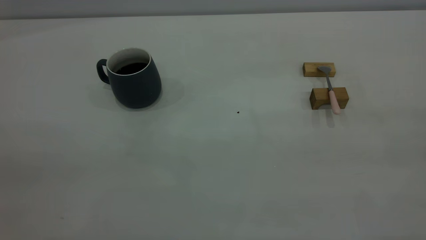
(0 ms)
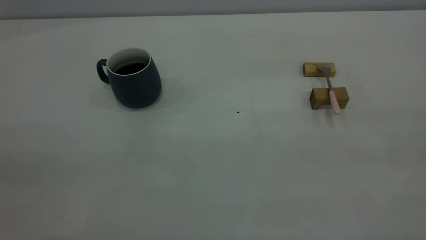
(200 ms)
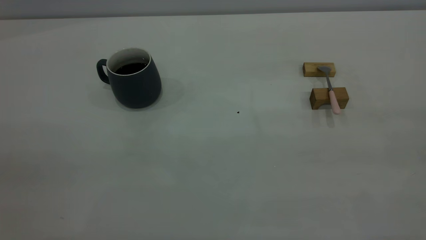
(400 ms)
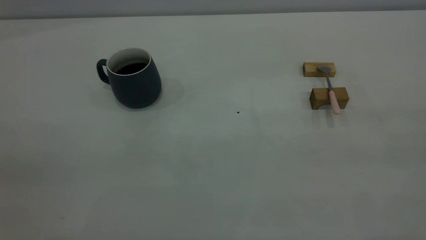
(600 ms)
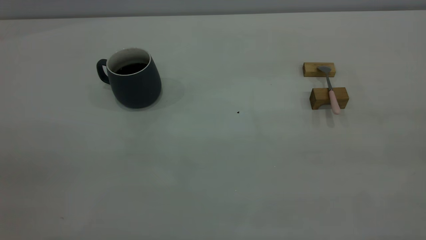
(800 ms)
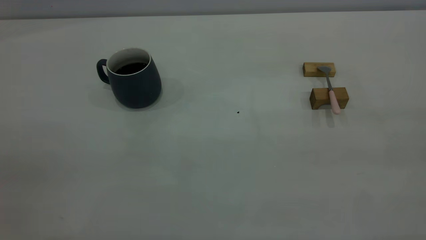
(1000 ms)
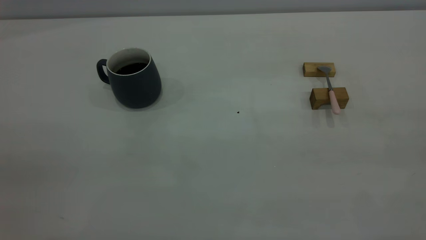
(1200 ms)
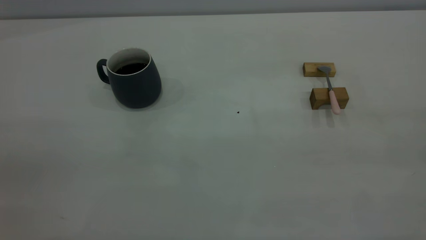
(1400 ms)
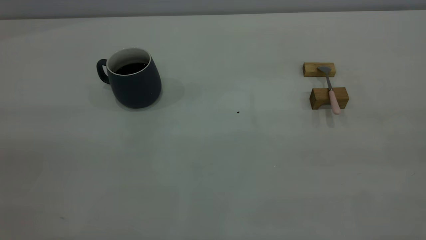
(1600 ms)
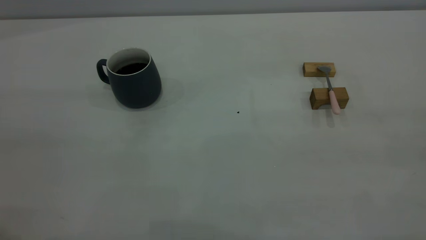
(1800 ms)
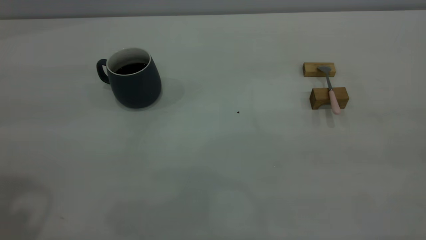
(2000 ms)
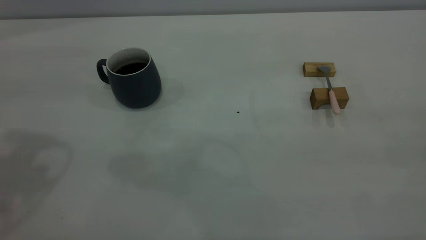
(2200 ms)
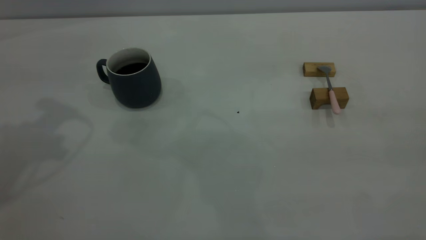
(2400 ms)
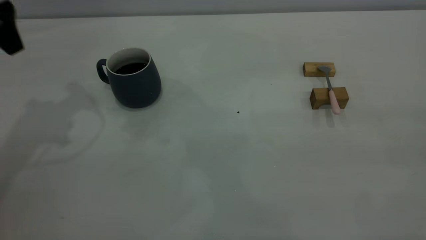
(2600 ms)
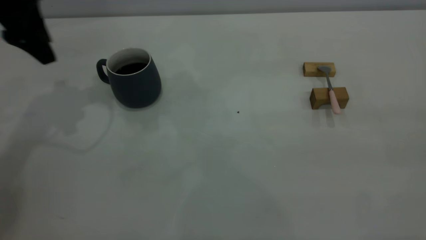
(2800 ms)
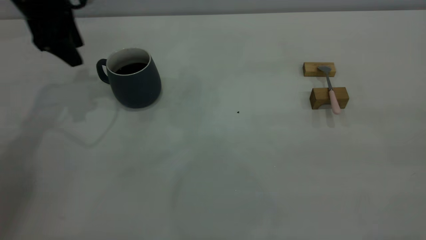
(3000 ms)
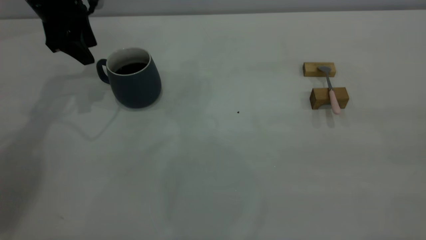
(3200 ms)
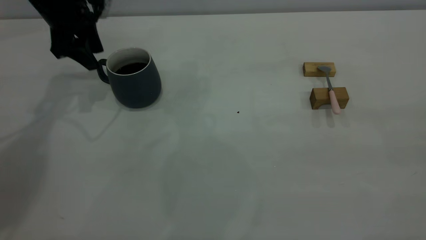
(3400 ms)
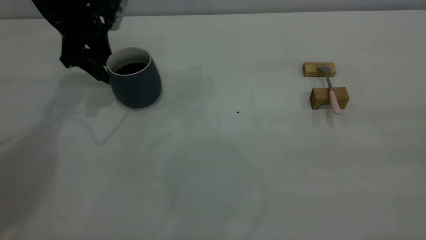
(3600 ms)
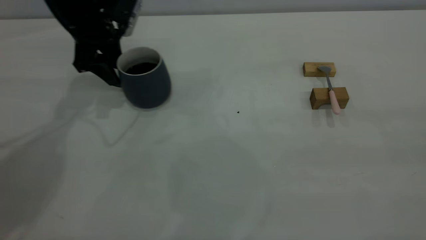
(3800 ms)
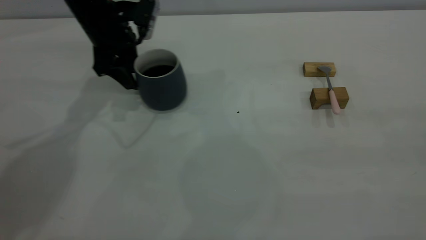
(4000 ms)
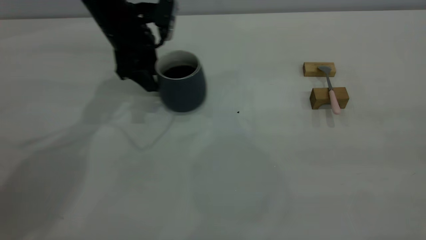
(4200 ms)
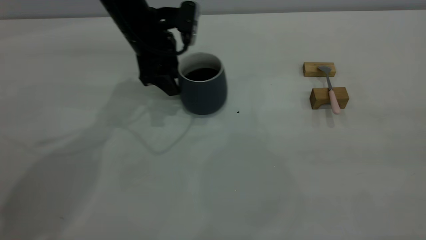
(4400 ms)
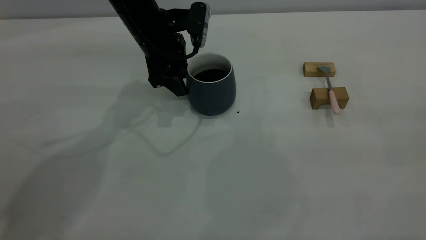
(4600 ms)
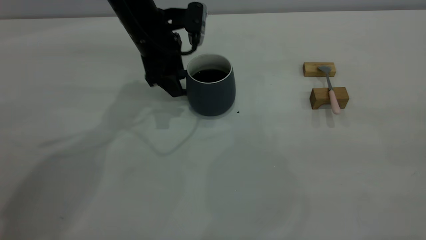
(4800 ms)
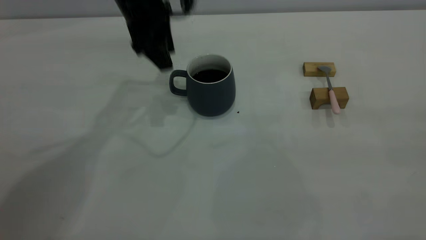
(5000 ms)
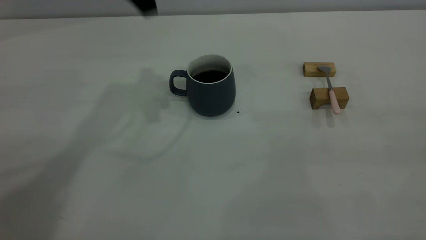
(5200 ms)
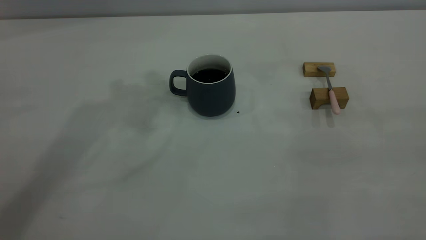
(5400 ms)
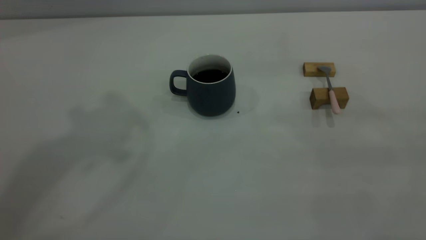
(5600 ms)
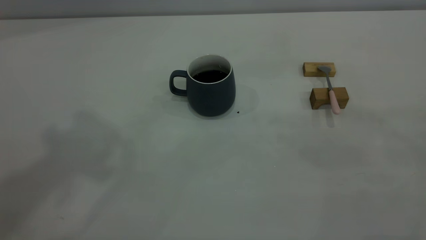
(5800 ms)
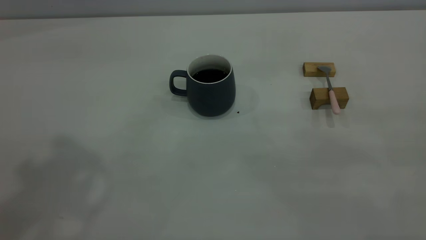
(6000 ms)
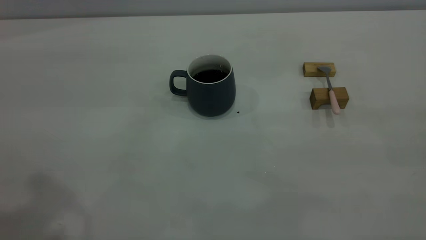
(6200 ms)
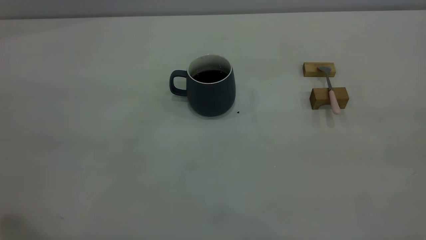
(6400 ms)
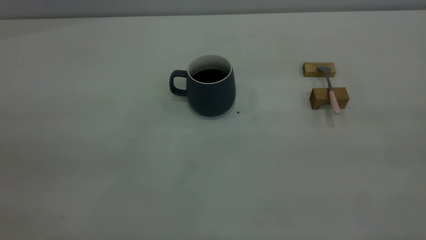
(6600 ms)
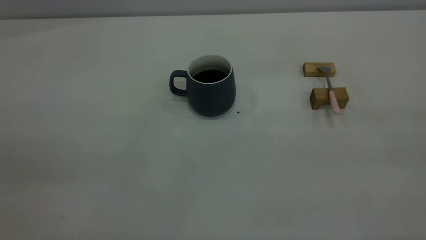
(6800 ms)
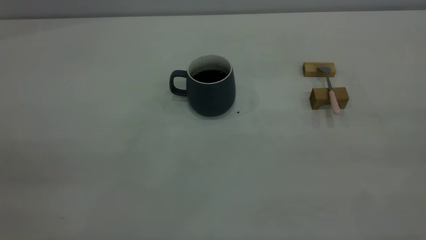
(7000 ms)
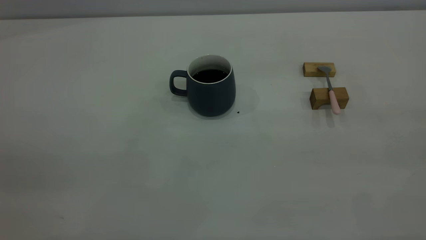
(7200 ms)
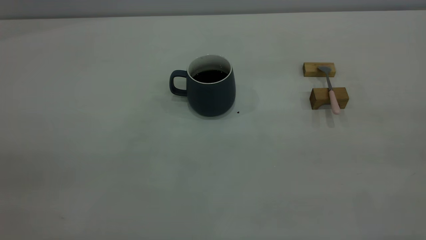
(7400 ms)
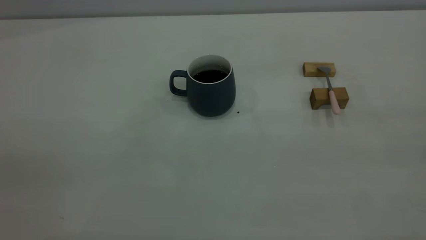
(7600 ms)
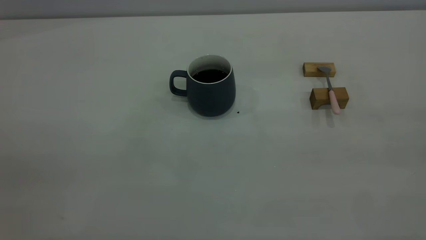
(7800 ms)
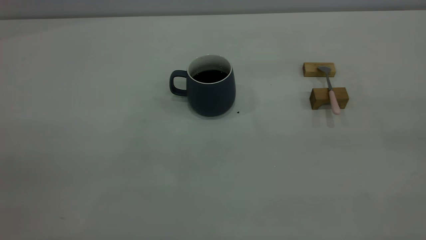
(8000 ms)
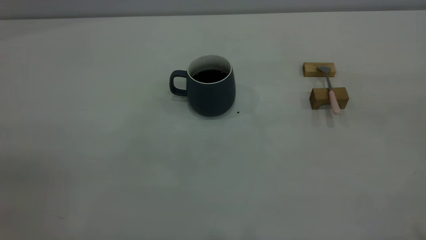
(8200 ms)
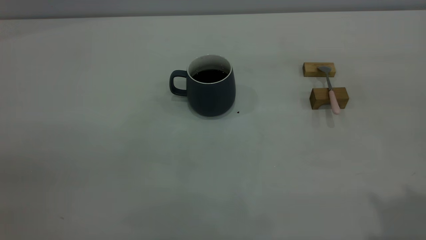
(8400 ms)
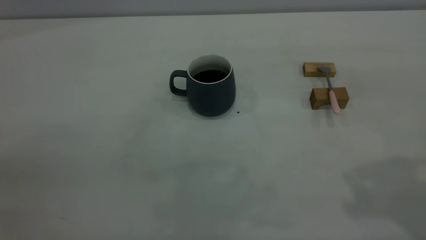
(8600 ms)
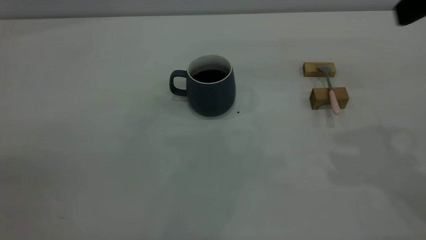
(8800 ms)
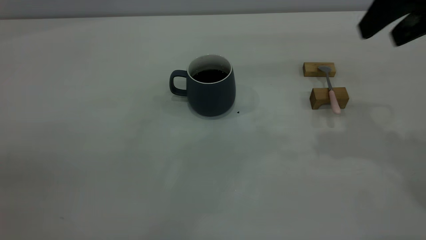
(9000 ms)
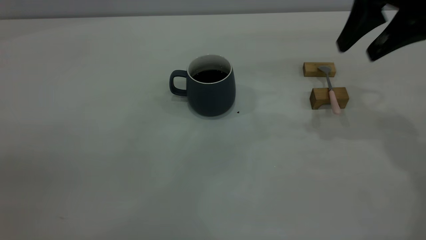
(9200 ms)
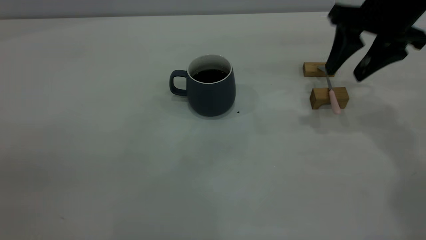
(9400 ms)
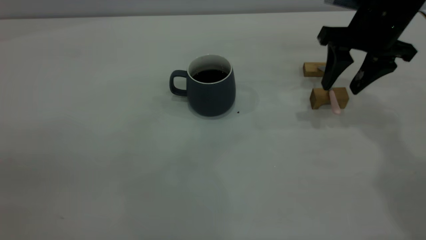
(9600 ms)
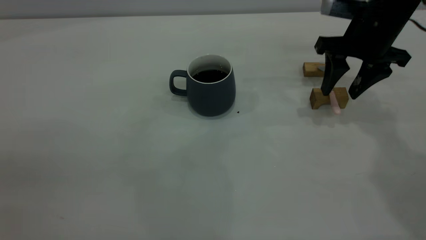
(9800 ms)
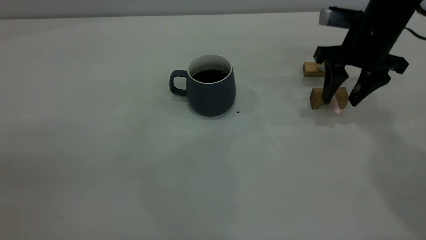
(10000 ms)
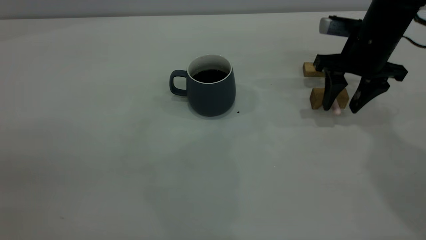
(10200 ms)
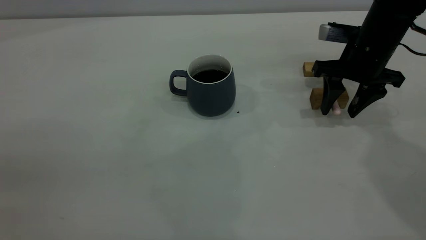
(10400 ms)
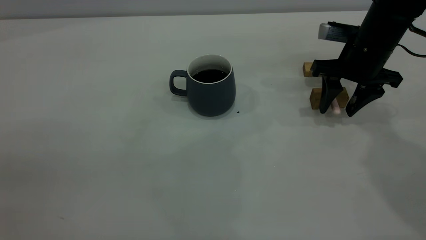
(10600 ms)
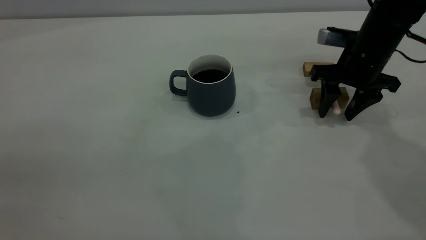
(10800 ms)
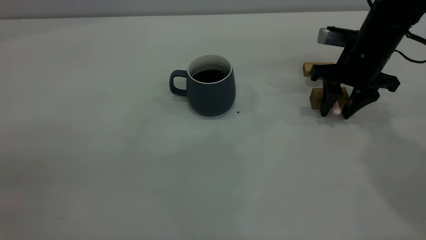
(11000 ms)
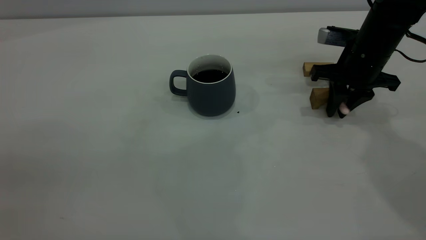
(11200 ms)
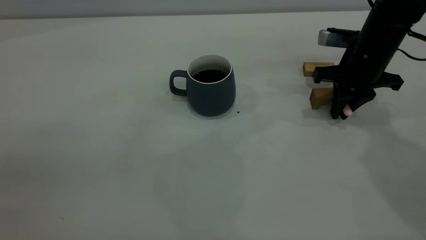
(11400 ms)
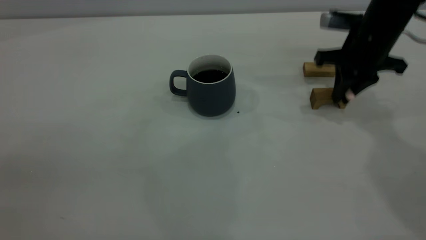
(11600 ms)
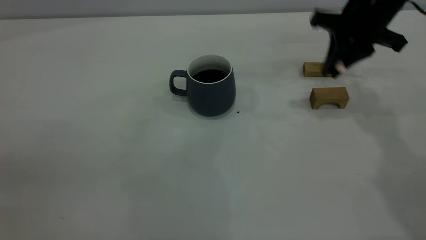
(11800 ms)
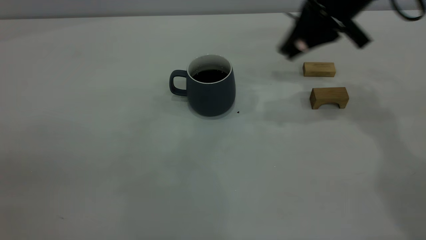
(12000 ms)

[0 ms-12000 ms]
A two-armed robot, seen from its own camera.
Step, 0 ms to 4800 ms: Move the cup with coffee to the center of view.
Step, 5200 ms to 11600 ms: Pick up the spoon.
1600 ms to 3000 ms: The left gripper heads forward and downward, covering roughly 40 cm.
3000 ms to 4400 ms: The left gripper goes about 15 cm to the right and downward.
4400 ms to 6000 ms: The left gripper goes some 40 cm upward and backward.
7600 ms to 9000 ms: The right gripper moves forward, approximately 30 cm, and opens its fingers.
9000 ms to 10400 ms: The right gripper travels downward and forward by approximately 20 cm.
10400 ms to 12000 ms: The right gripper moves upward and to the left, roughly 10 cm, and closes its fingers.

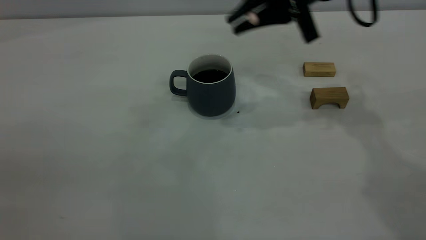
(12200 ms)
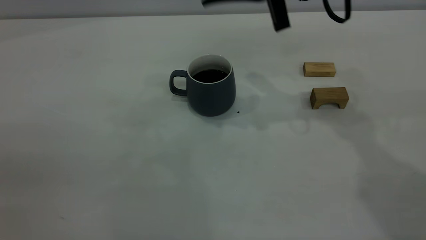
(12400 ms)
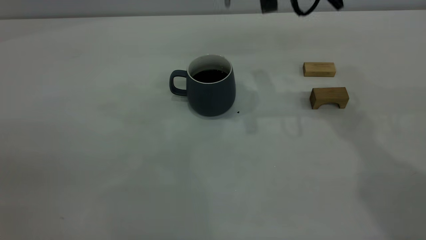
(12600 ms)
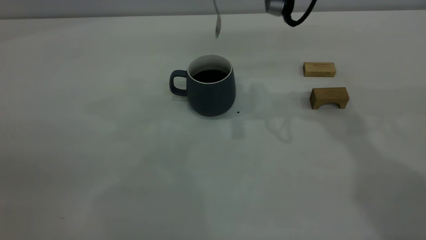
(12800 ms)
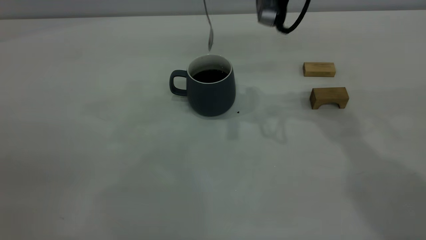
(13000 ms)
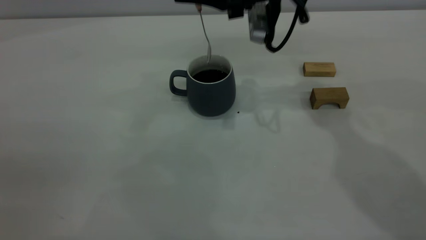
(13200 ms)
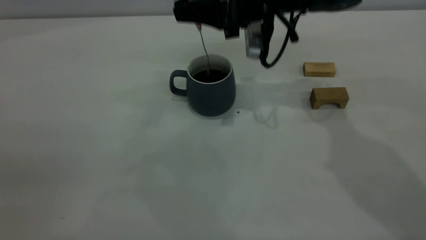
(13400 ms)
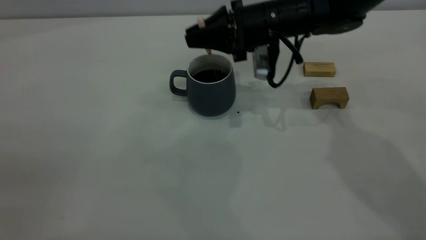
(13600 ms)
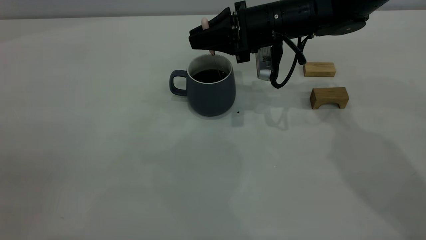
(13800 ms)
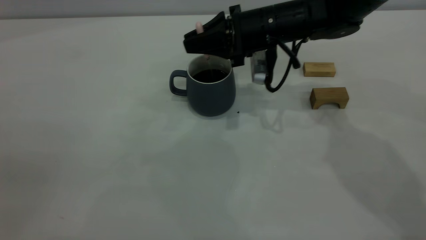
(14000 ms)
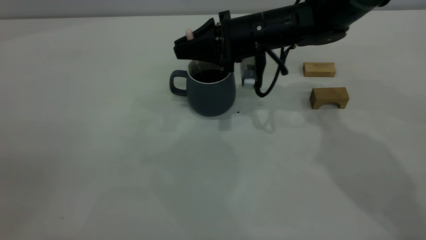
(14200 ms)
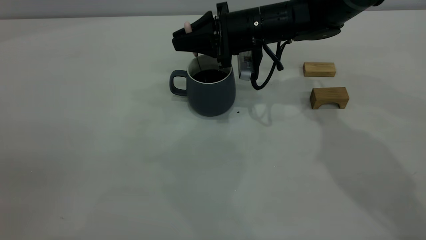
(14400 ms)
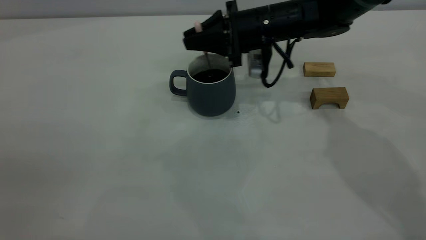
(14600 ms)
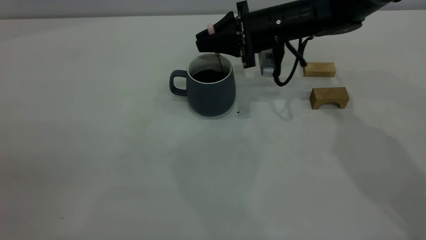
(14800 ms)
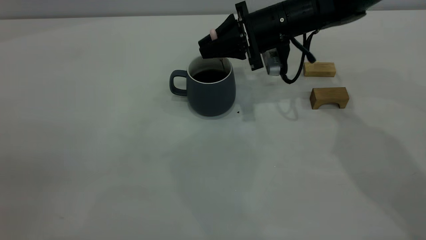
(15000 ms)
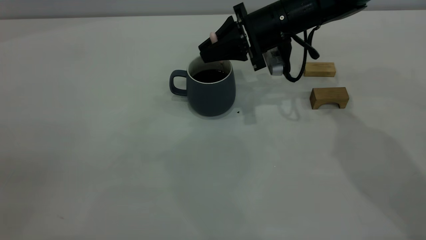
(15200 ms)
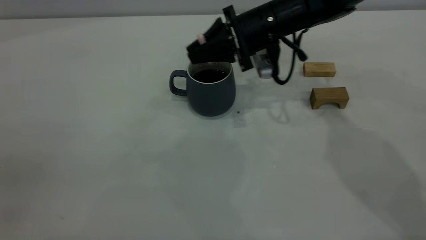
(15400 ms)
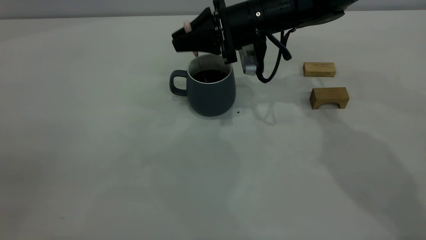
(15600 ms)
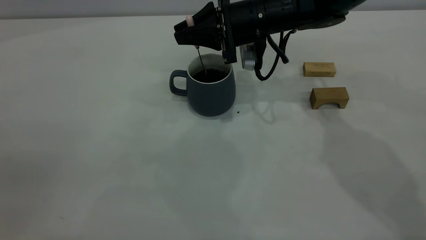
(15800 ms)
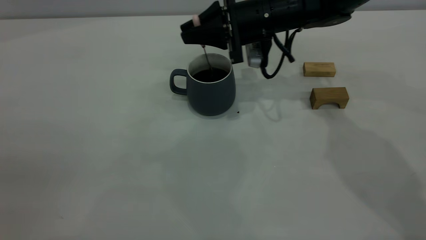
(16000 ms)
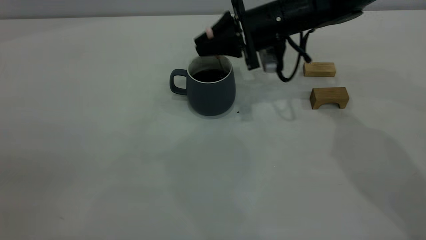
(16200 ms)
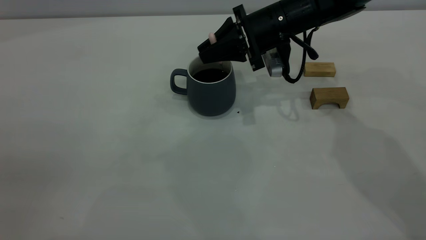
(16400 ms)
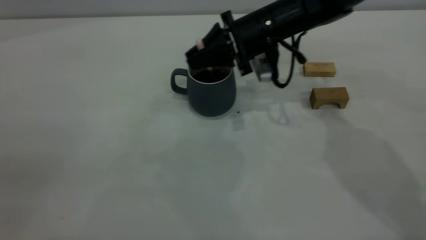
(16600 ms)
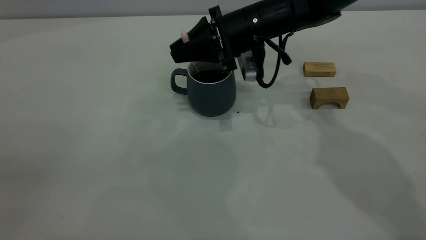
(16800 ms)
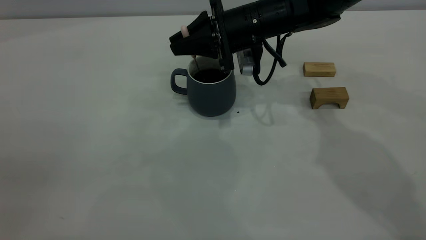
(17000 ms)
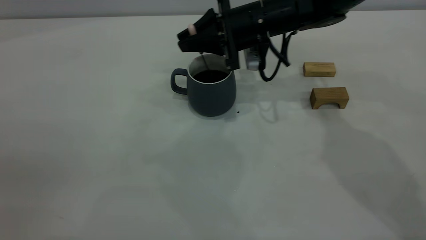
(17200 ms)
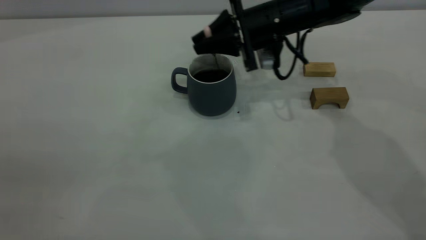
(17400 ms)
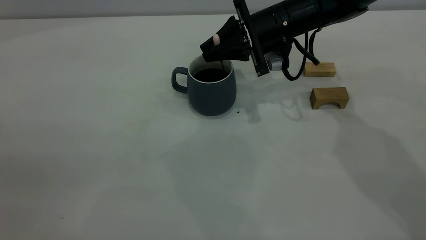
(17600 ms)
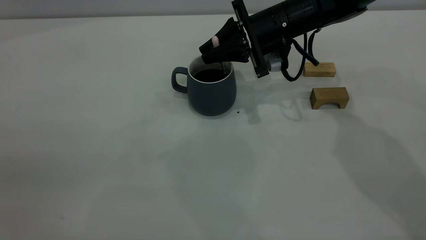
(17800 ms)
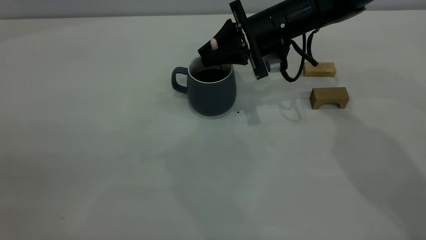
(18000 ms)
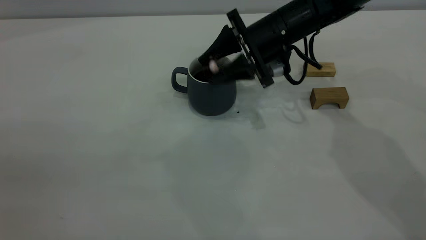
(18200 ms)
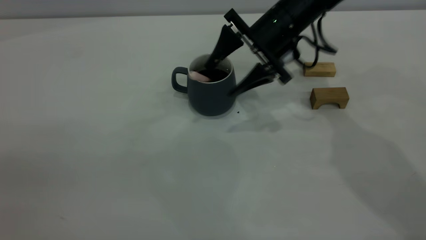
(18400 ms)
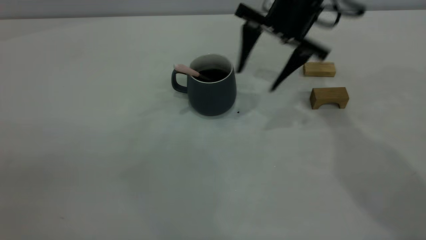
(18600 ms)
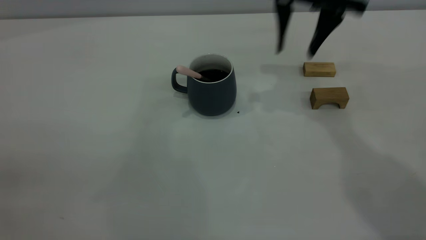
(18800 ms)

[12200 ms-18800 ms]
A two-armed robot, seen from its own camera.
Step, 12200 ms to 18400 ms: Stir the coffee in the cup.
12200 ms to 13800 ms: The right gripper shifts some 10 cm downward.
13800 ms to 17200 ms: The grippers stay close to where they were, moving slightly.
17200 ms to 18800 ms: The right gripper travels upward and to the right by approximately 15 cm, and opens.
